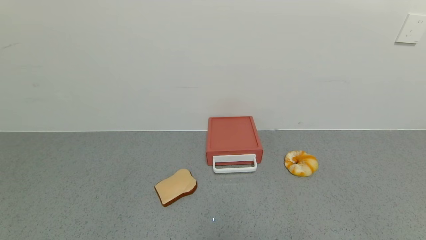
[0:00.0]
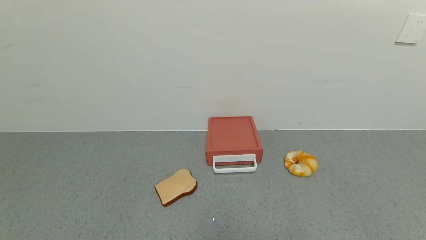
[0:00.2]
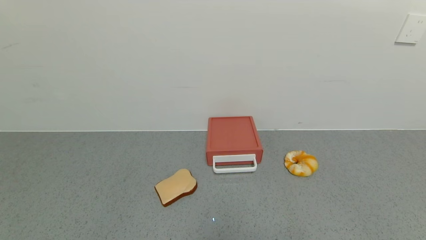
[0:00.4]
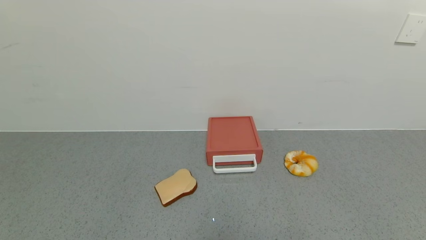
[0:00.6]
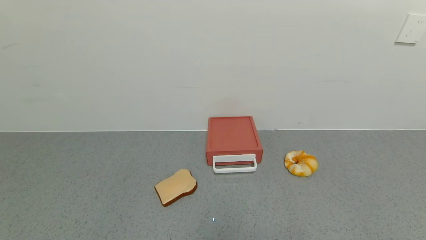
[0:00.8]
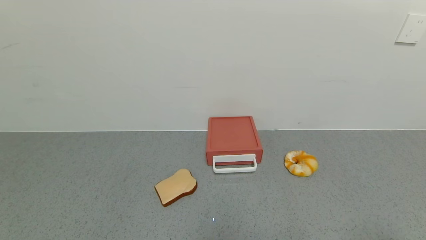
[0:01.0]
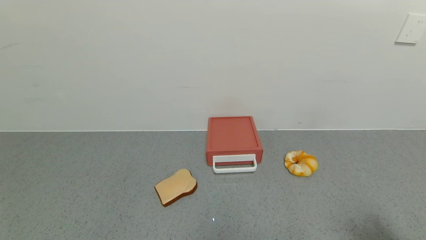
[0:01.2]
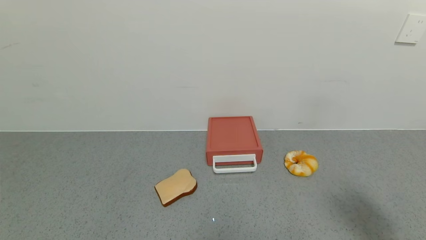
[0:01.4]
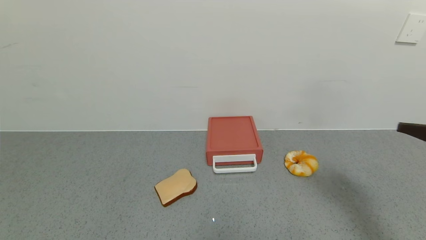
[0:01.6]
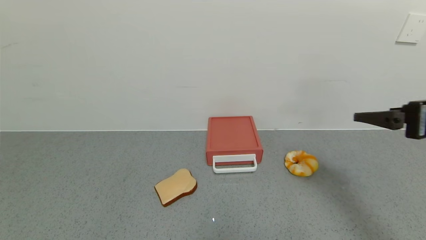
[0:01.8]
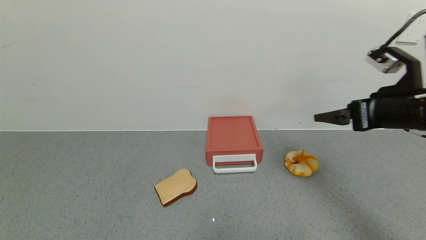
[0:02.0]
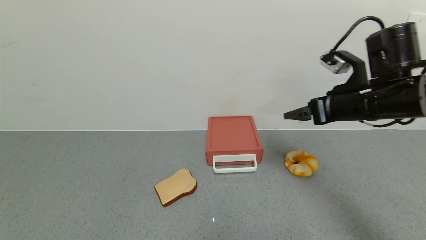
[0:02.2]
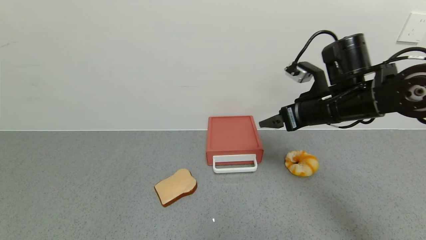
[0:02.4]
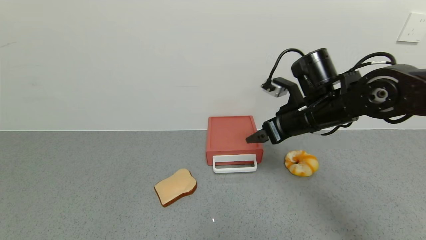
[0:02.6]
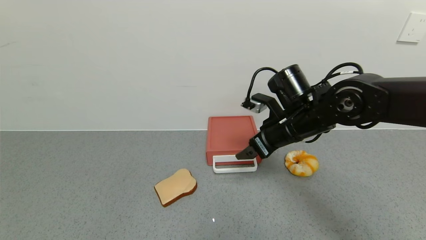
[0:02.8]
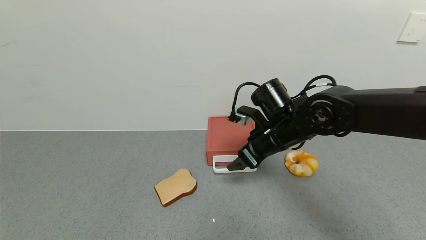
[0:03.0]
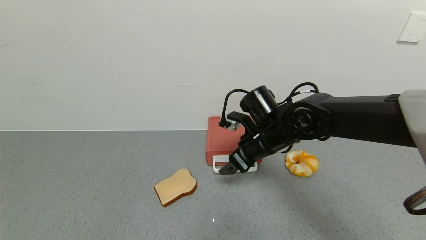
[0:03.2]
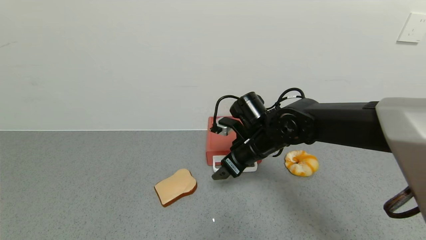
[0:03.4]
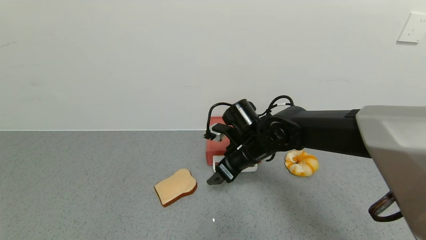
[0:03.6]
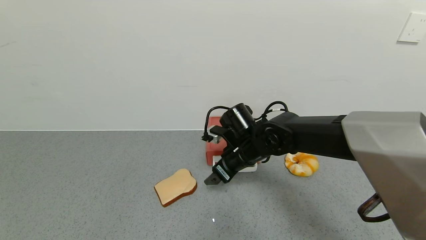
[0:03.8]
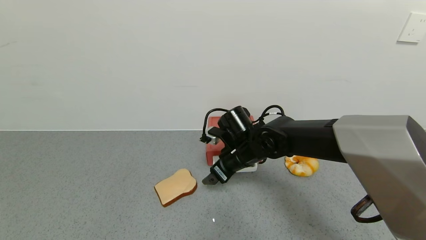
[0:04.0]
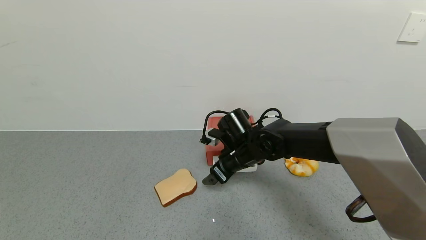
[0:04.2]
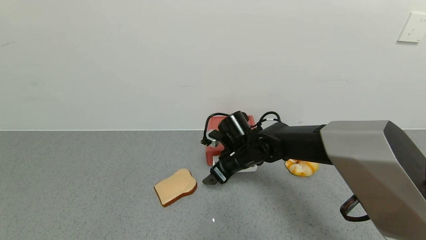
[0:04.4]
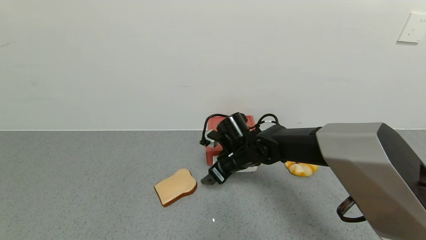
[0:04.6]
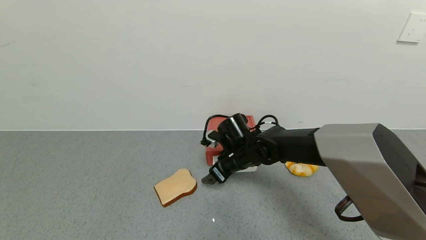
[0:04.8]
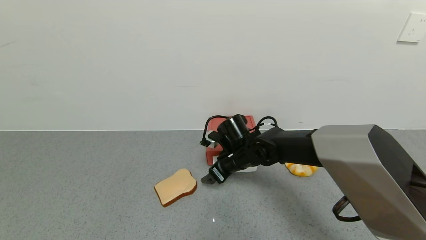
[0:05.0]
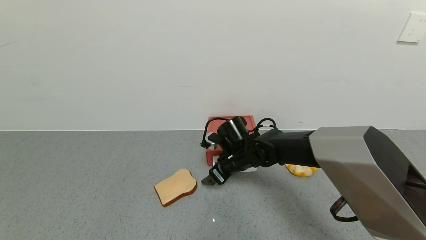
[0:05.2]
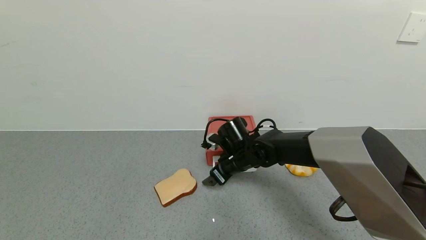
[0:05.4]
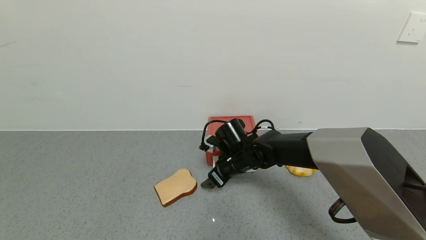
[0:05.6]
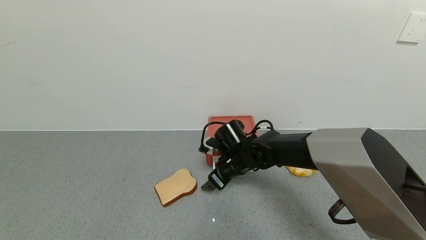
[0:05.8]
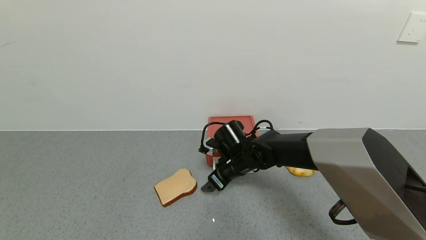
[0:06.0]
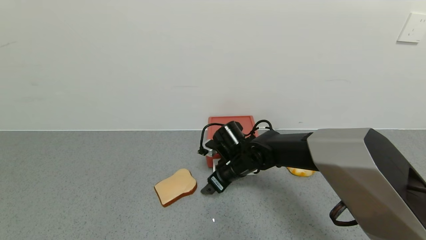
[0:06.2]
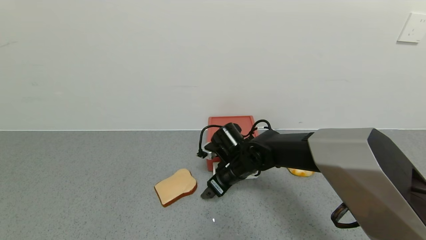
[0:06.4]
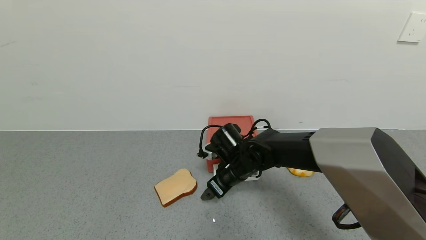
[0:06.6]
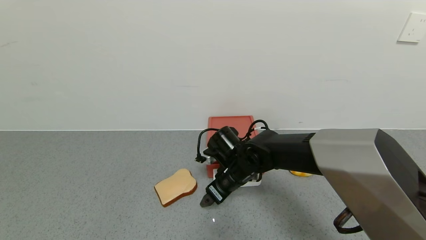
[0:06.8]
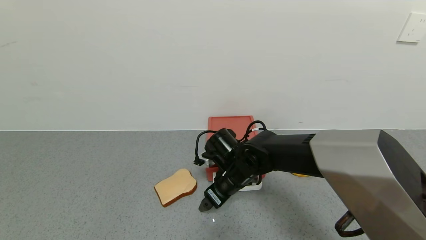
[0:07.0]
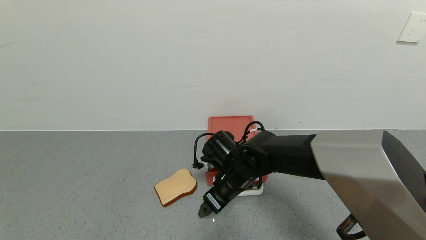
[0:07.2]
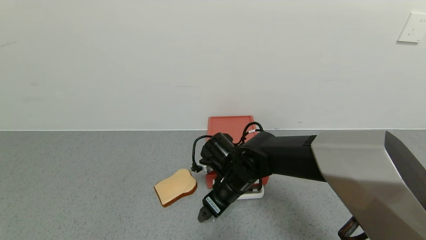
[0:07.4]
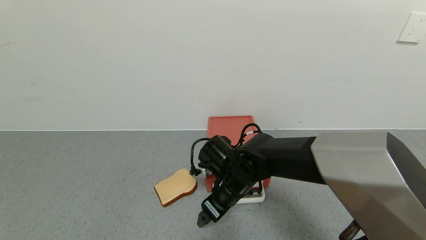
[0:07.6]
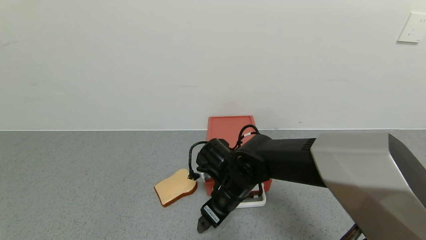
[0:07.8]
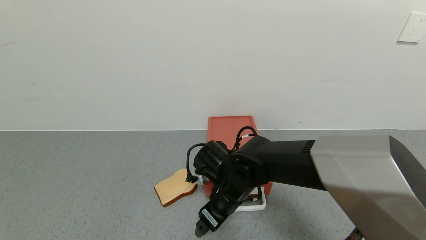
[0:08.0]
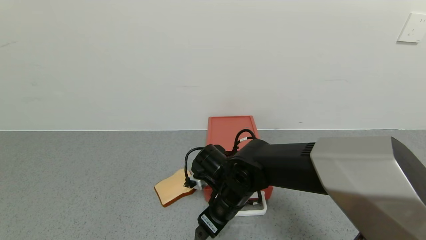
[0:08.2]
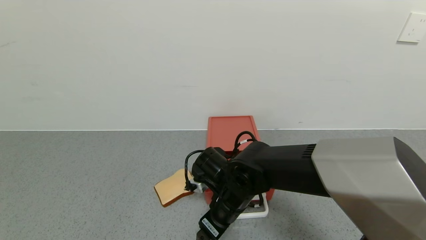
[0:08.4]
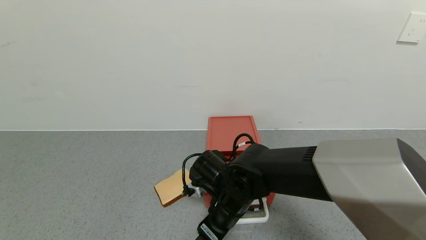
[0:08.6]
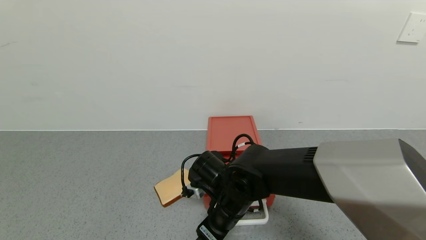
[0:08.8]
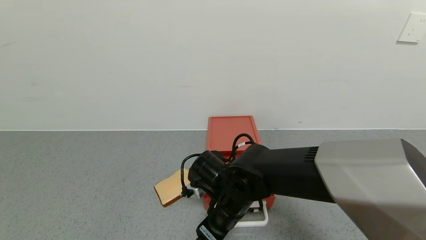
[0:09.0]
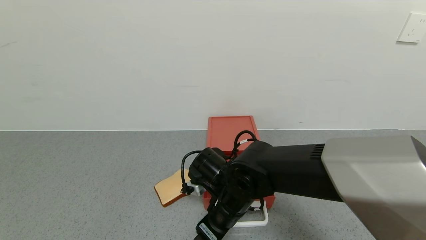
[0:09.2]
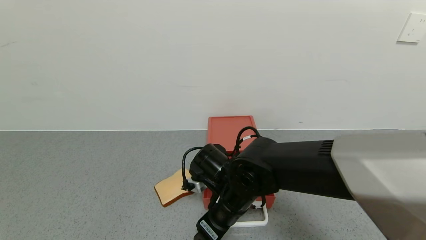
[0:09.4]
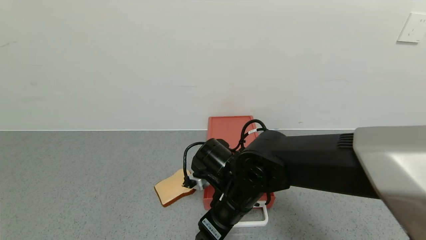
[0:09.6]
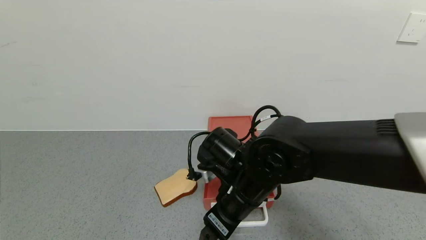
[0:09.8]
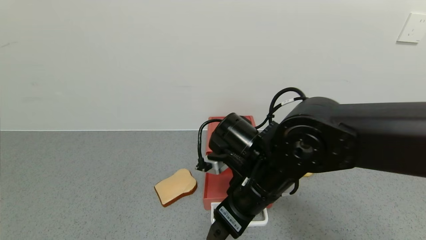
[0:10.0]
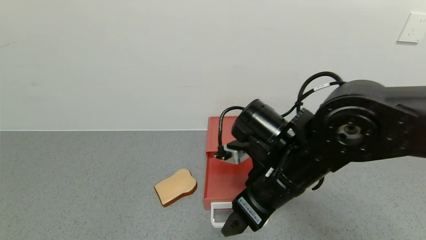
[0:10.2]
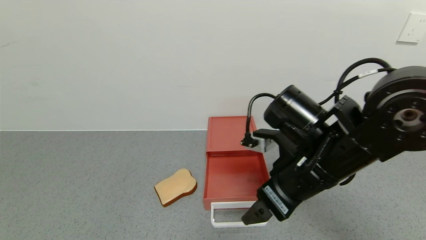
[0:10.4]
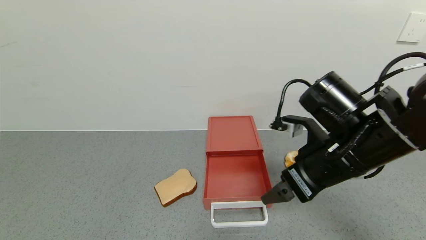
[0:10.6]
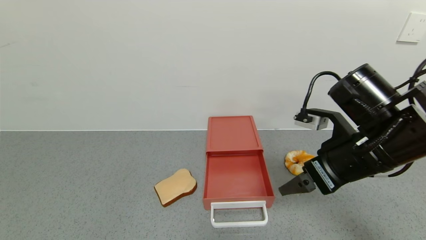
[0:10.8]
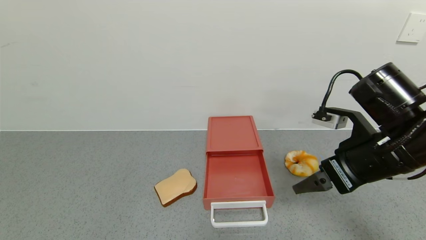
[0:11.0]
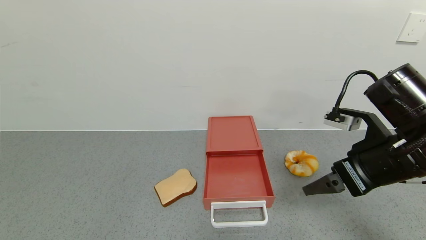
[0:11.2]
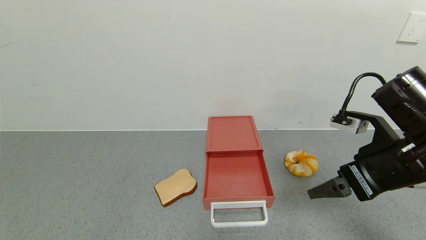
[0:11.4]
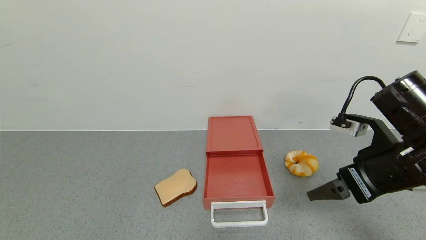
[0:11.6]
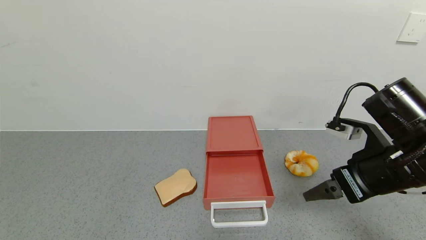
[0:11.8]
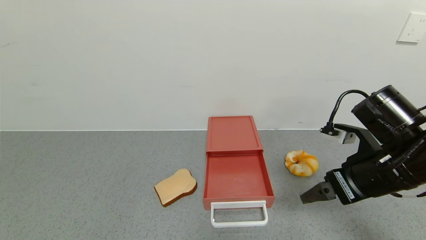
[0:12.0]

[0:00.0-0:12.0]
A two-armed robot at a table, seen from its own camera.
Task of the whole recording: use the gripper to open the drawer and close the red drawer.
Step, 0:00.0 to 0:09.6: Open the red drawer with the right gripper.
0:00.0 to 0:01.6: The right gripper travels upward and forward by about 30 cm.
0:01.6 to 0:03.0: The right gripper heads to the left, forward and downward, covering approximately 30 cm.
0:03.0 to 0:04.4: The right gripper heads downward and to the left, covering about 10 cm.
0:04.4 to 0:06.0: The grippers make only small movements.
0:06.0 to 0:07.6: The right gripper is displaced backward by about 5 cm.
0:07.6 to 0:09.0: There are only small adjustments of the grippers.
0:09.0 to 0:10.4: The right gripper is displaced upward and to the right by roughly 20 cm.
0:10.4 to 0:12.0: The right gripper moves to the right, some 10 cm.

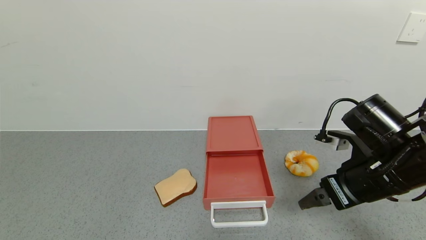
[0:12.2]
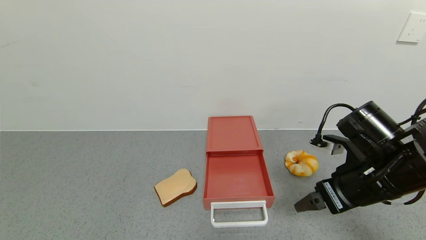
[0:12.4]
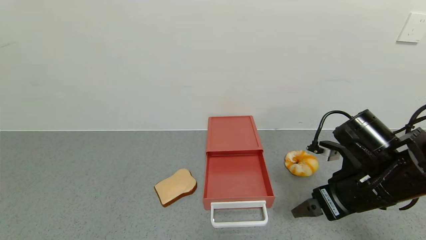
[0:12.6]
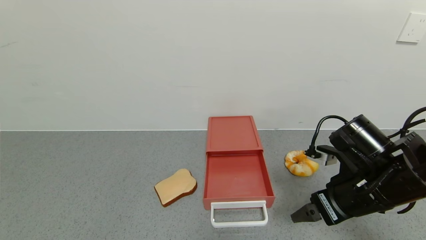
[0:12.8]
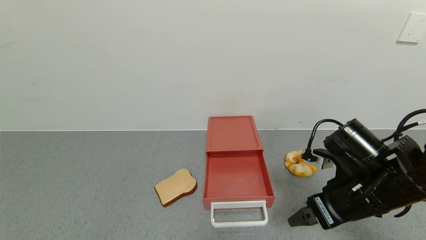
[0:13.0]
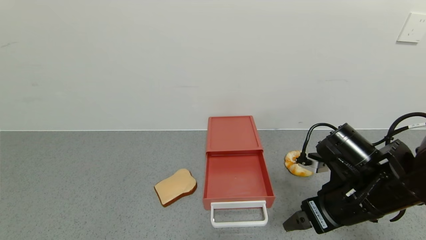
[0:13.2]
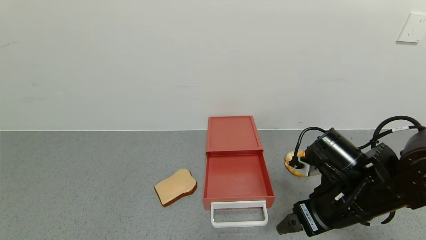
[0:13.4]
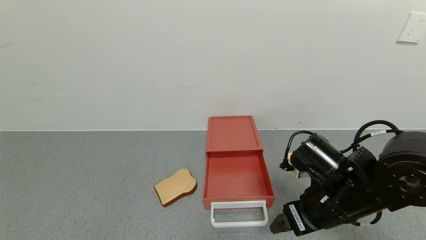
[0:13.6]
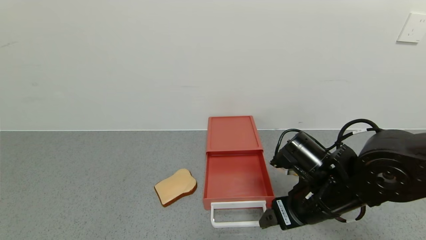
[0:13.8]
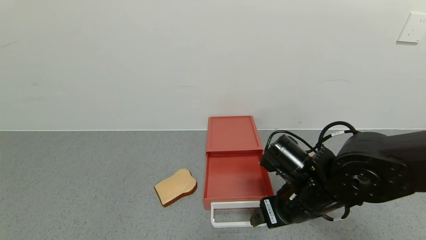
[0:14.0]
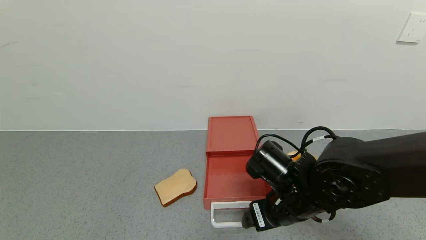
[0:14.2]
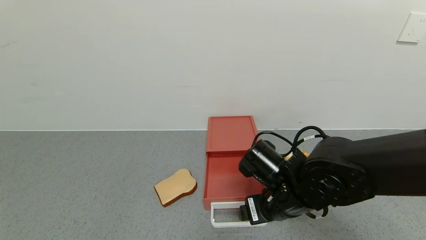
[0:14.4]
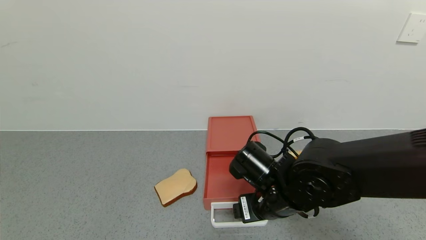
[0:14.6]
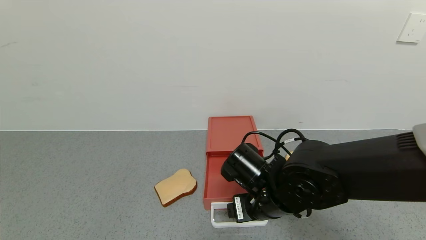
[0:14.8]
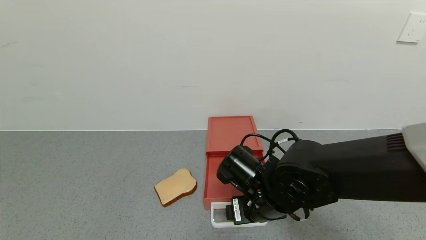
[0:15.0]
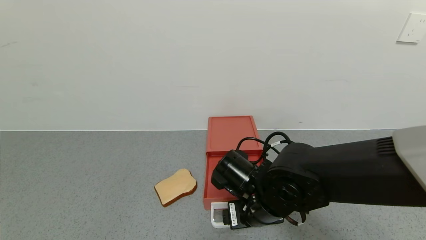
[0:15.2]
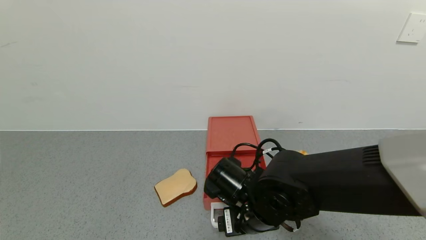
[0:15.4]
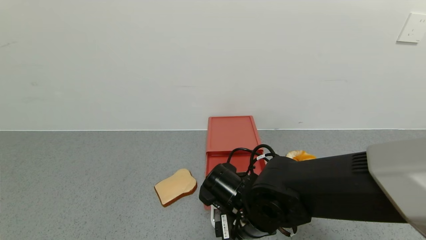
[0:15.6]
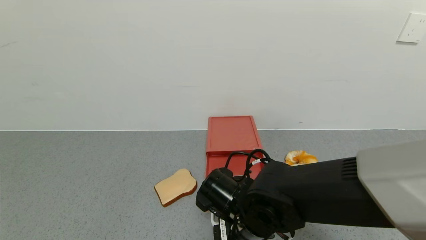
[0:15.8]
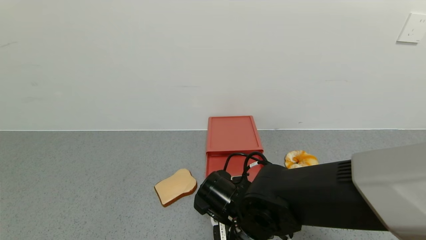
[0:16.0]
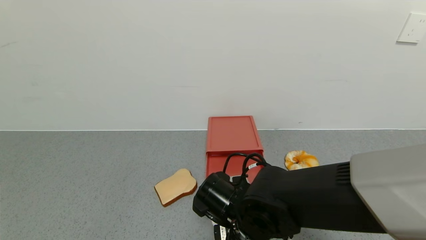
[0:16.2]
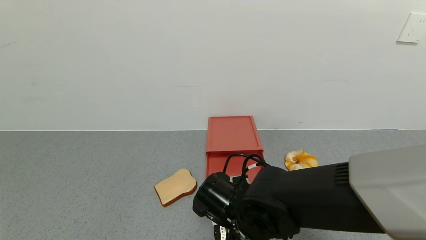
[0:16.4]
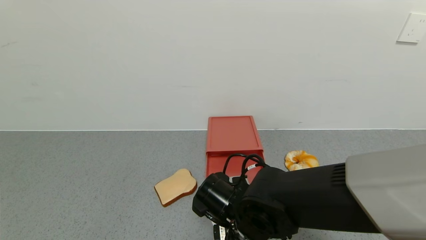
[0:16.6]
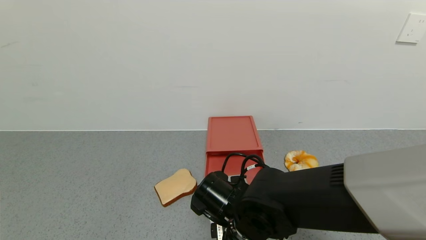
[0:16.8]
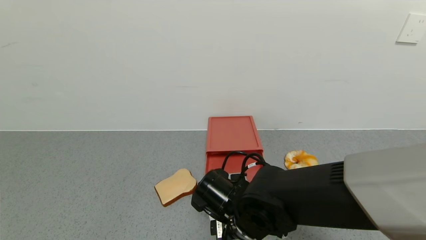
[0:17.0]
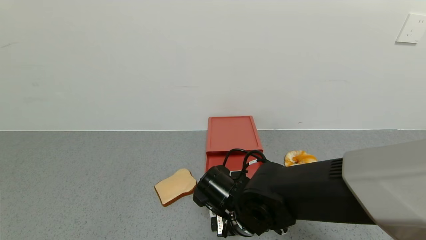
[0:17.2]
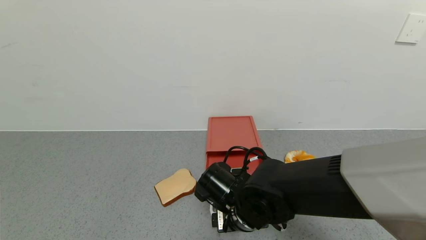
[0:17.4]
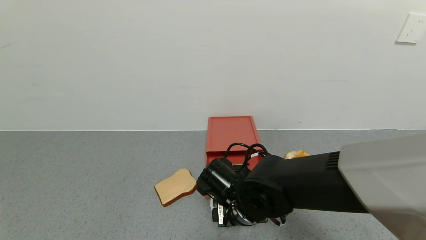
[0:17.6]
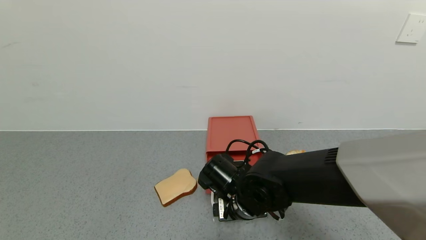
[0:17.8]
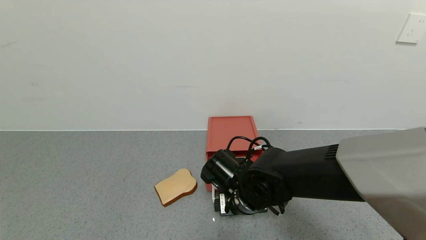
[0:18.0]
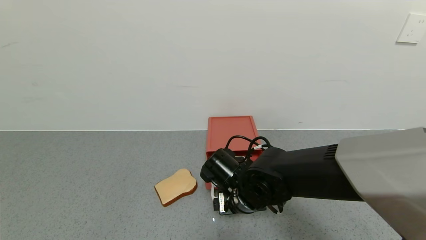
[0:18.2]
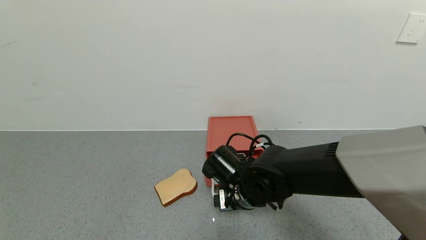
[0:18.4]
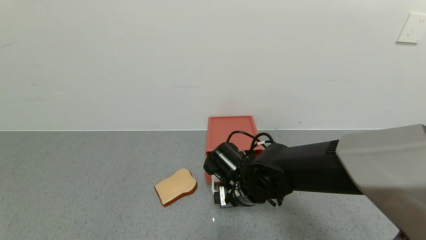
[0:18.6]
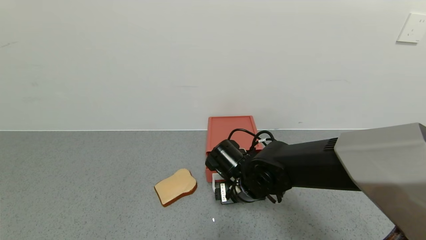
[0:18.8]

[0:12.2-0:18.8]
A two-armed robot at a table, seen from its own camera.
Task of the whole recording: use the gripper to open the drawer and close the red drawer.
0:12.2 to 0:13.8: The right gripper heads to the left and downward, covering roughly 10 cm.
0:13.8 to 0:15.4: The right gripper travels to the left by roughly 10 cm.
0:15.4 to 0:17.2: The grippers move only a little.
0:17.2 to 0:18.8: The right gripper shifts approximately 5 cm forward.
